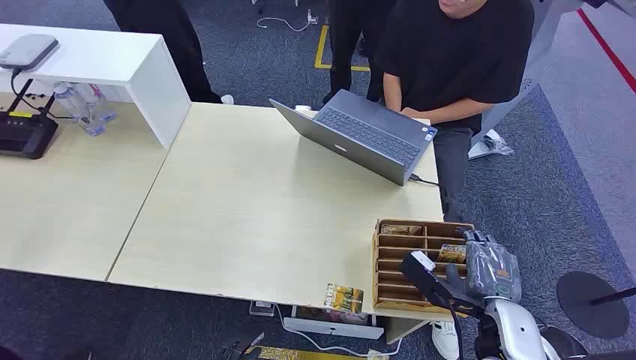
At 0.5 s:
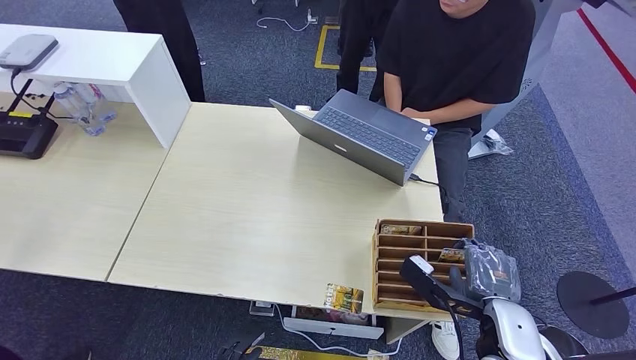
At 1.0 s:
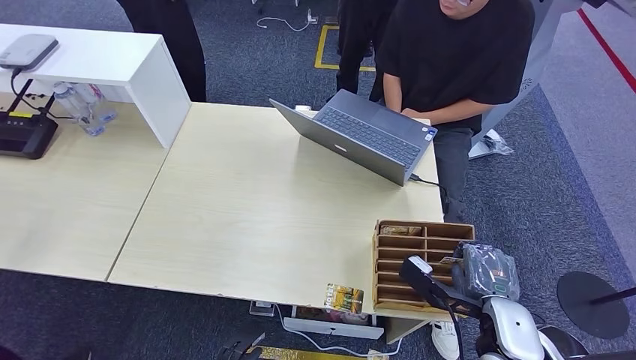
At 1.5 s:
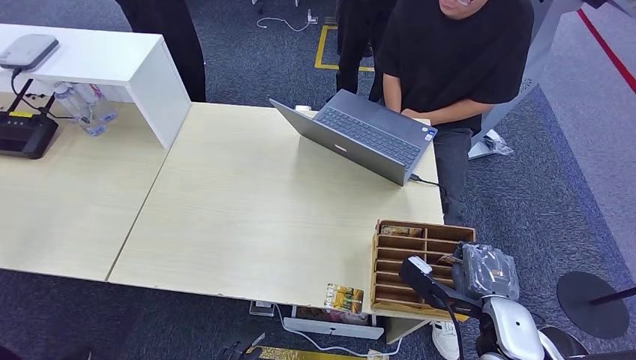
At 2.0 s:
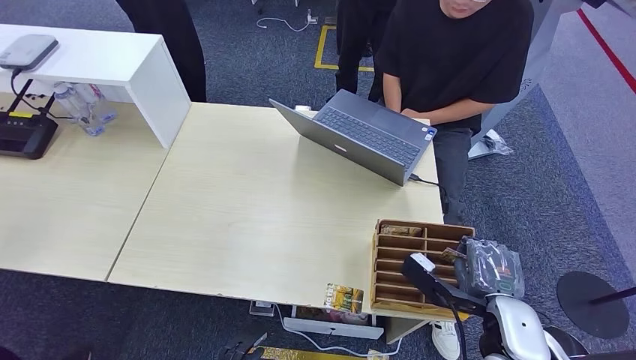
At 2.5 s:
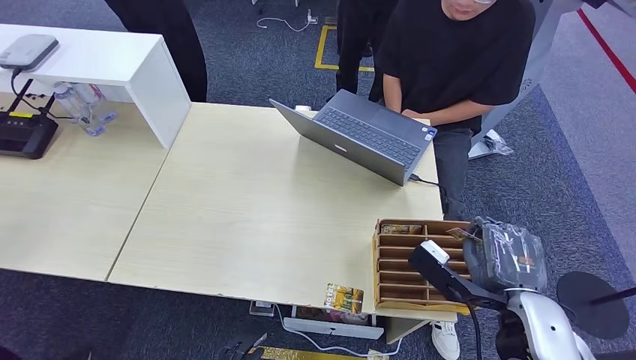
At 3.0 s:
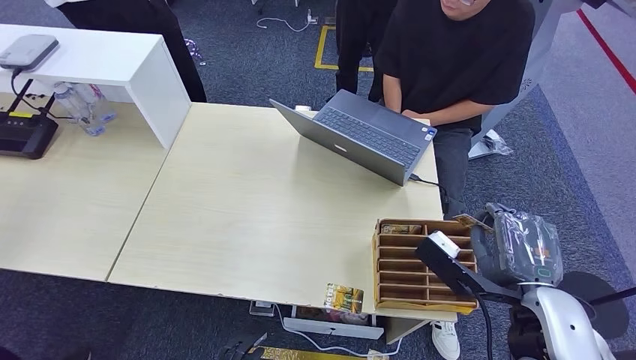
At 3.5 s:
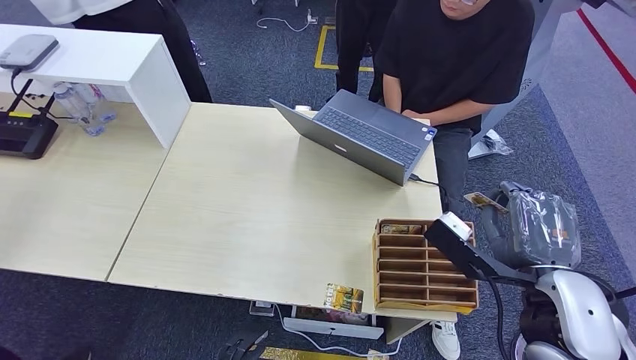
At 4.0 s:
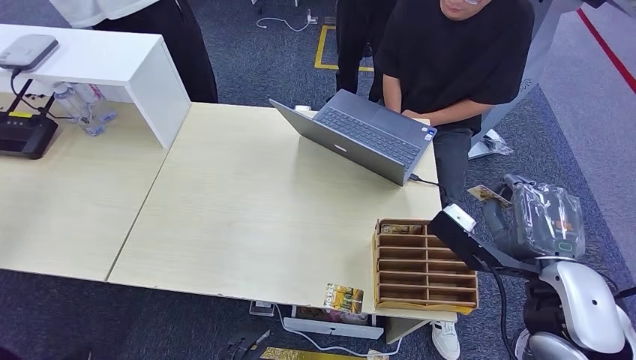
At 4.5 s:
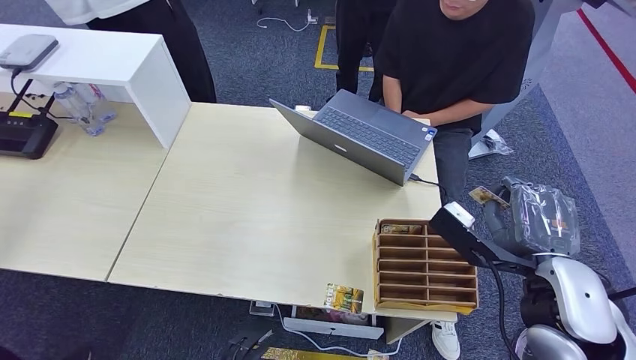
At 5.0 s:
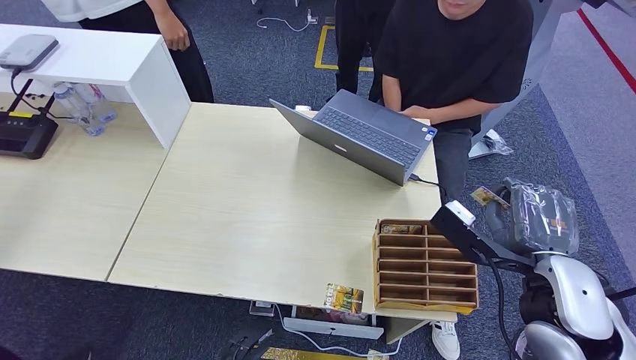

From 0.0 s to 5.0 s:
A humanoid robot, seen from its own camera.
Step, from 0.0 s to 3.5 s: Pick up the key card from the card box.
Step, from 4.5 s to 5.0 s: Hand the key card to the target.
From 2.5 s to 5.0 s: The right hand travels upward by approximately 5 cm.

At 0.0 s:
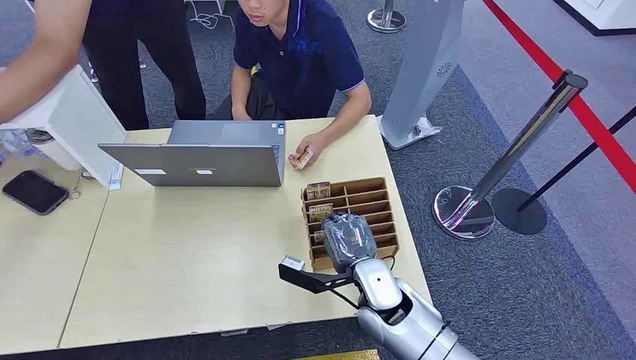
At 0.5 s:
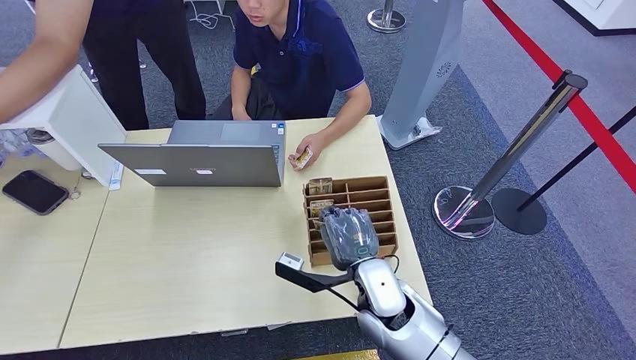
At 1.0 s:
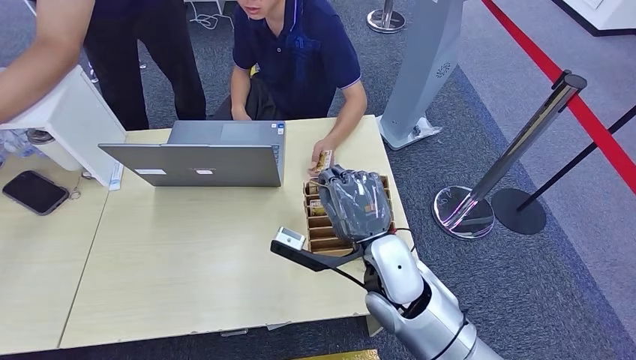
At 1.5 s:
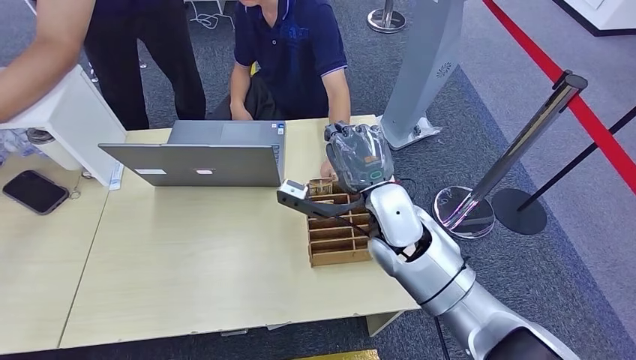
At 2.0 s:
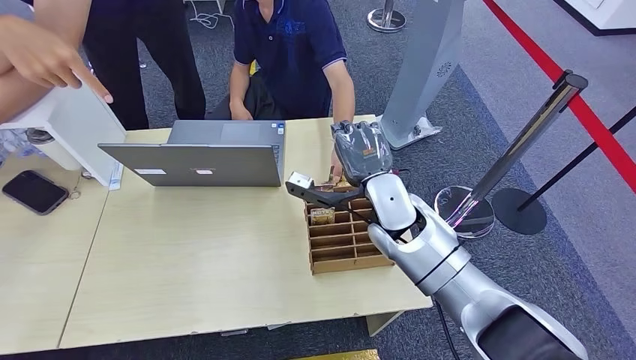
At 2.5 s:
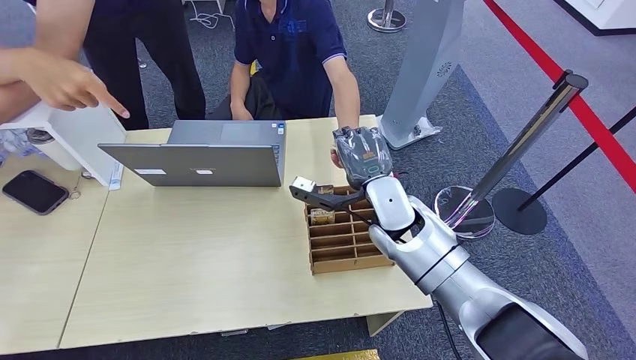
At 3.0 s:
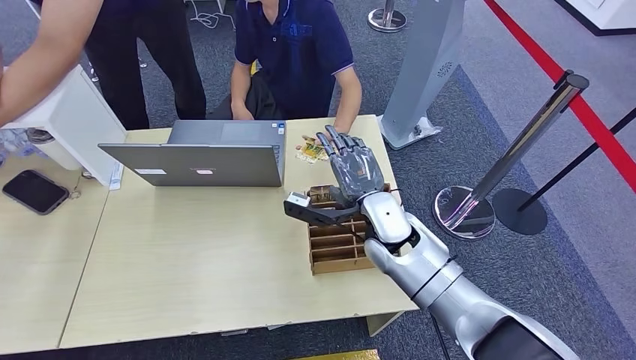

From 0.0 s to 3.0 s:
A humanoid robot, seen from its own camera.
Step, from 0.0 s to 0.5 s: Pick up the key card from the card box.
From 1.5 s to 3.0 s: The right hand moves downward, approximately 5 cm.

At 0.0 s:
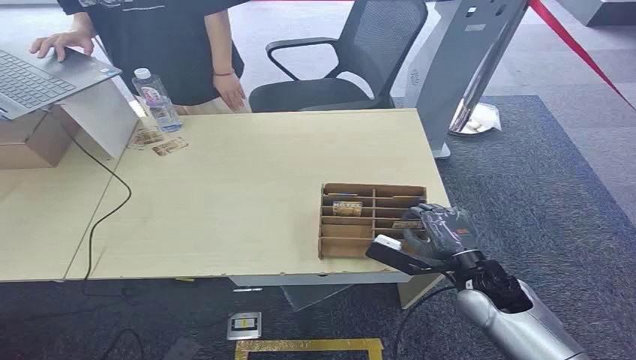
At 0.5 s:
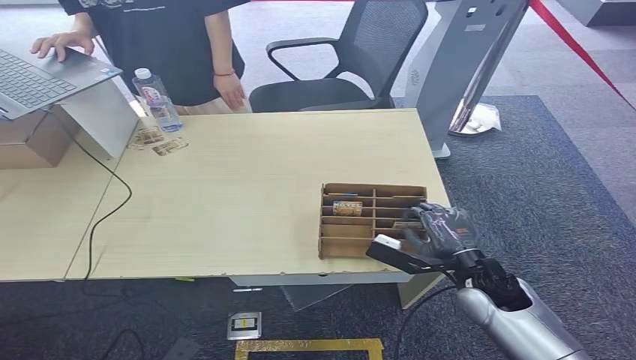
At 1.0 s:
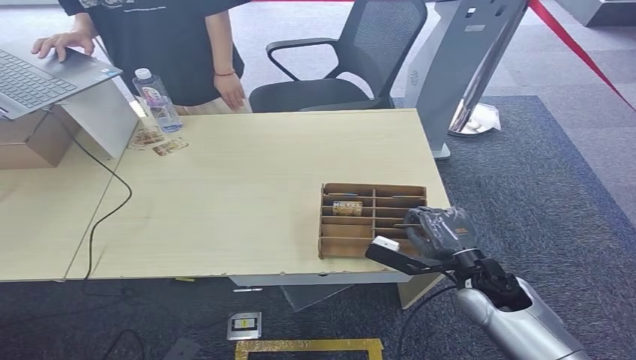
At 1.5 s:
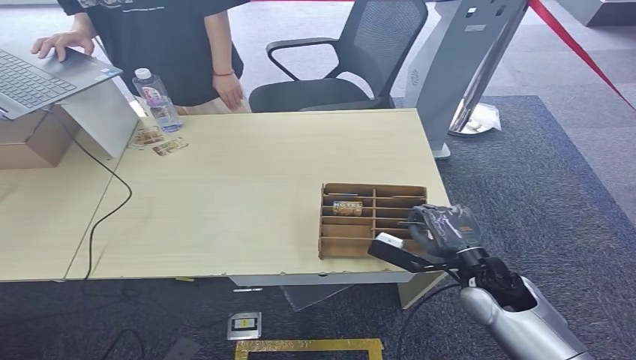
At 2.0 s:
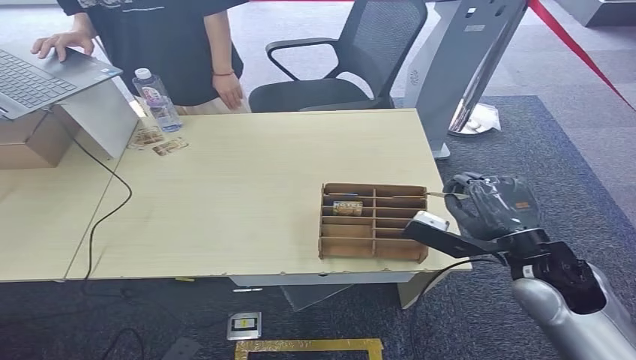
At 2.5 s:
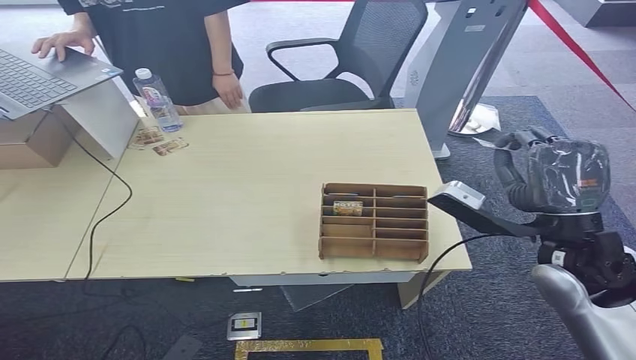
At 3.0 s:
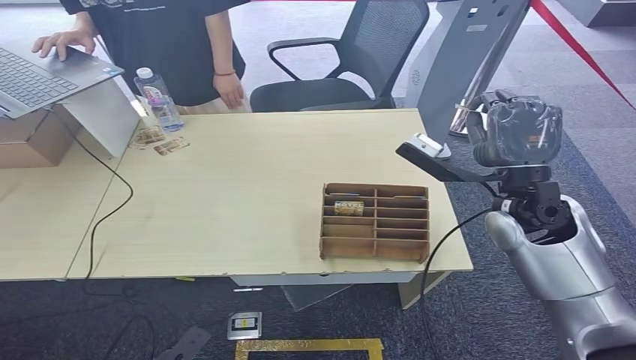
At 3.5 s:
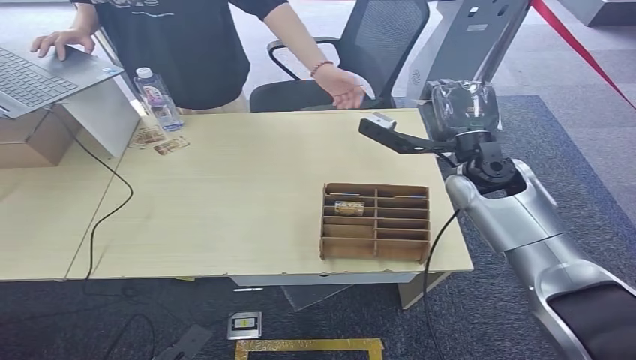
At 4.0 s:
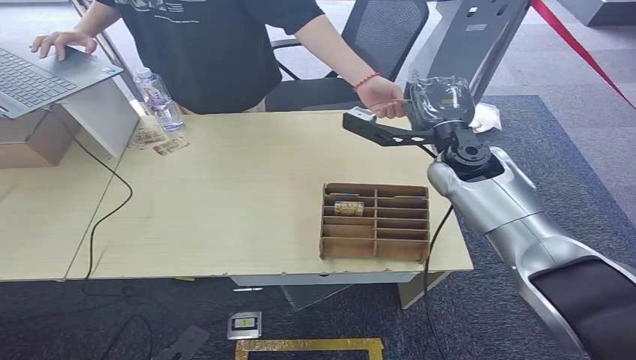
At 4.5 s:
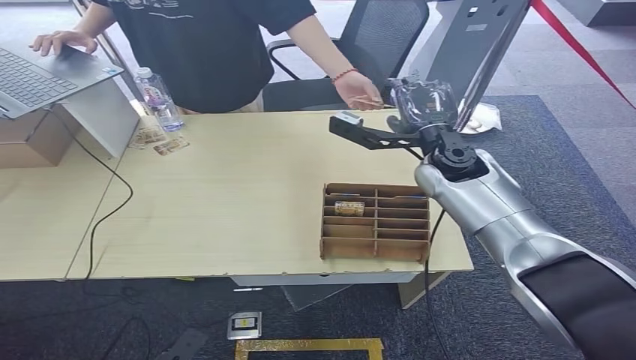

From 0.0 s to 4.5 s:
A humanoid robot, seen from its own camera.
Step, from 0.0 s to 2.5 s: Pick up the key card from the card box.
Step, from 3.0 s to 4.5 s: Hand the key card to the target.
From 2.0 s to 4.5 s: The right hand is displaced forward and to the left by some 20 cm.
